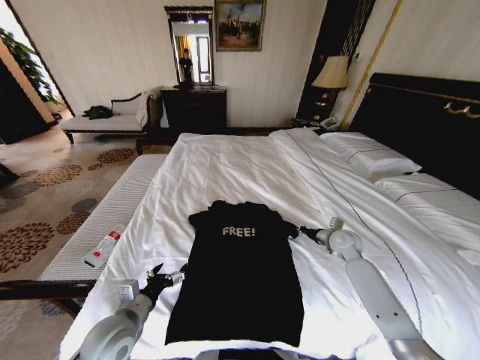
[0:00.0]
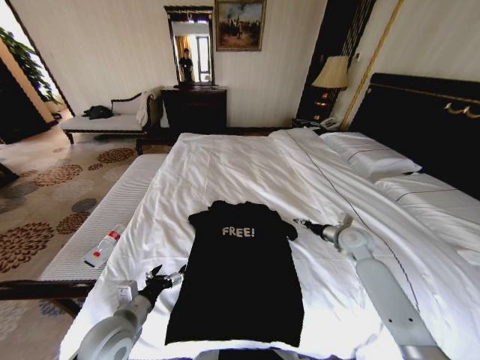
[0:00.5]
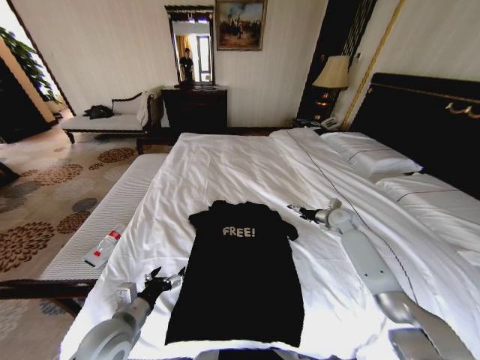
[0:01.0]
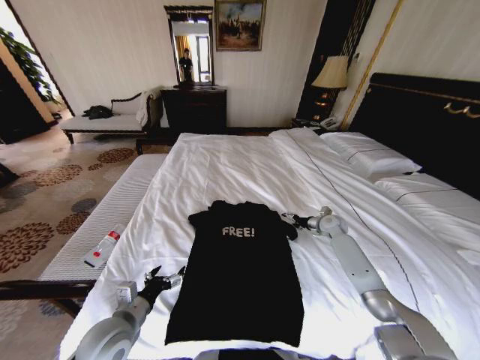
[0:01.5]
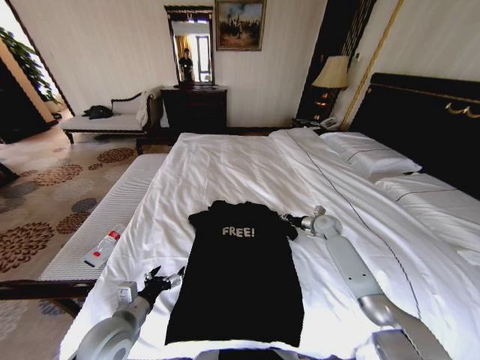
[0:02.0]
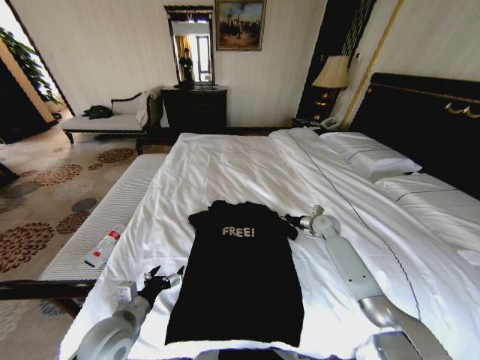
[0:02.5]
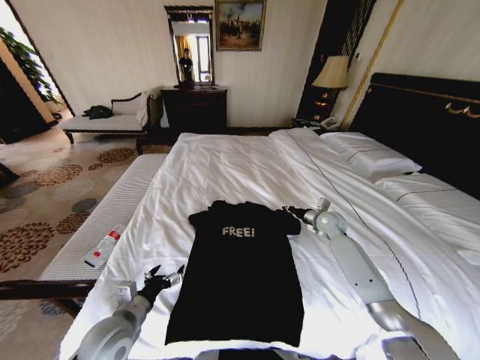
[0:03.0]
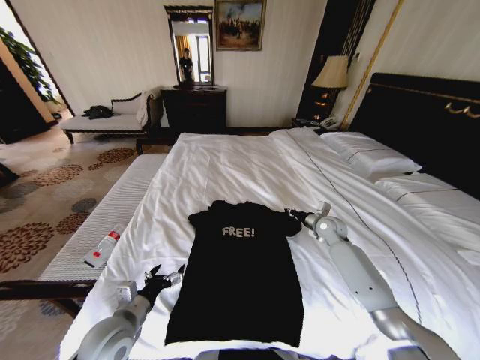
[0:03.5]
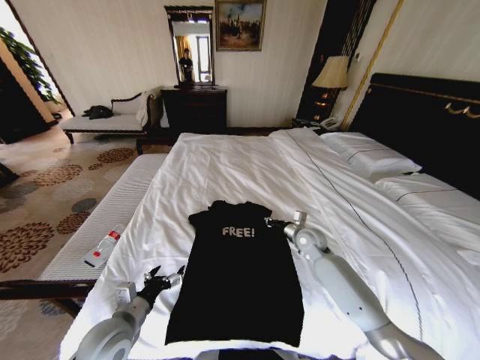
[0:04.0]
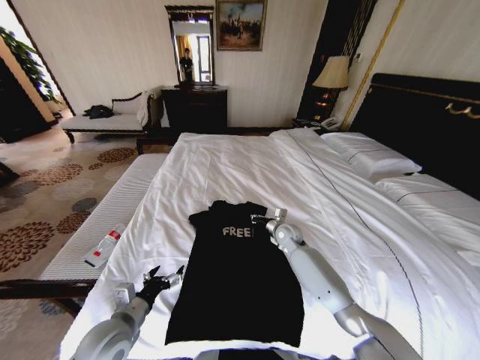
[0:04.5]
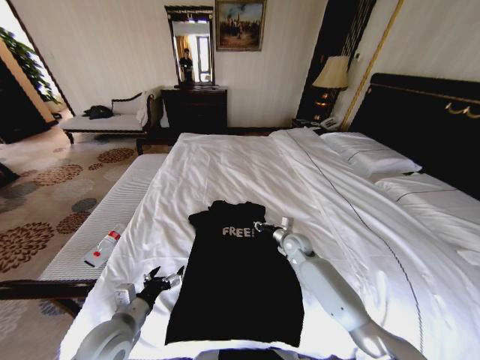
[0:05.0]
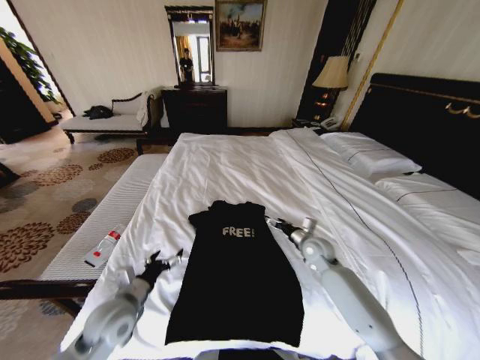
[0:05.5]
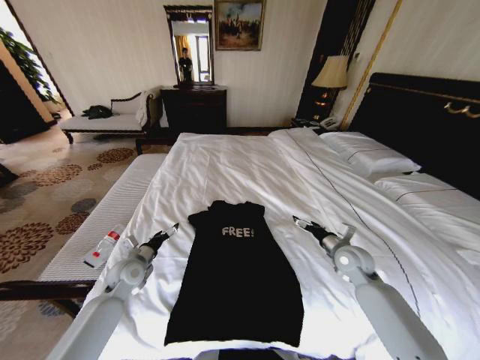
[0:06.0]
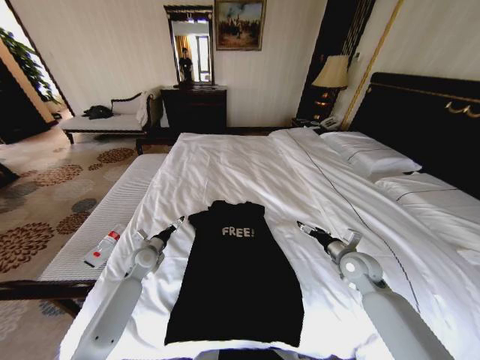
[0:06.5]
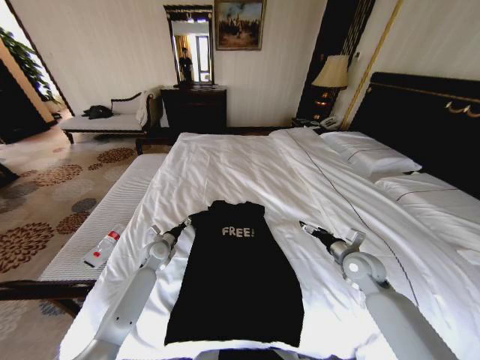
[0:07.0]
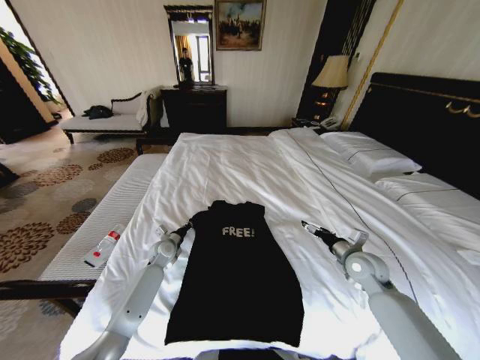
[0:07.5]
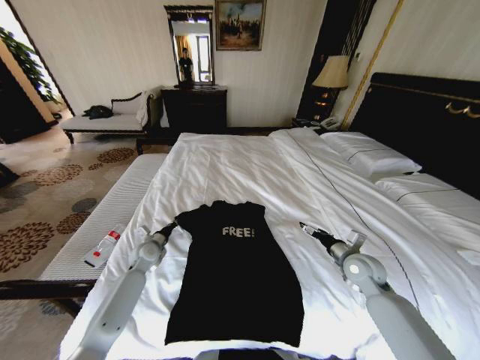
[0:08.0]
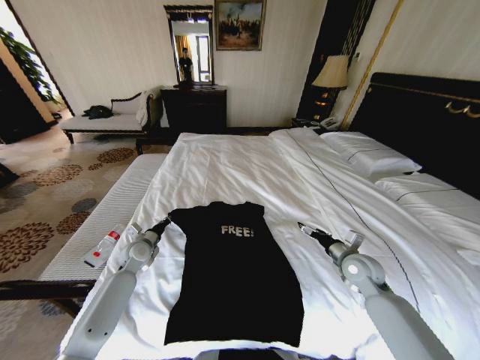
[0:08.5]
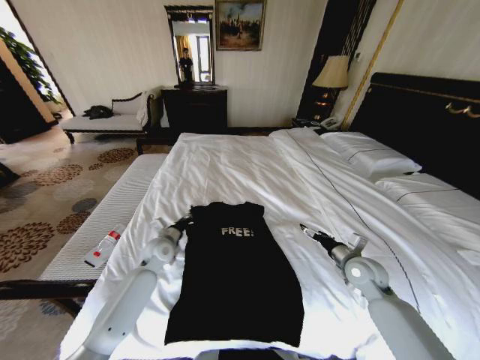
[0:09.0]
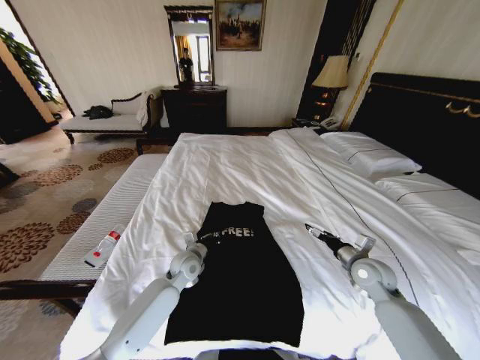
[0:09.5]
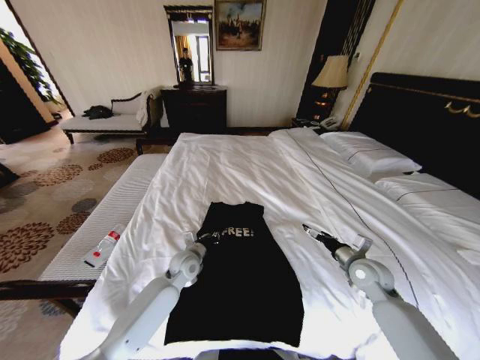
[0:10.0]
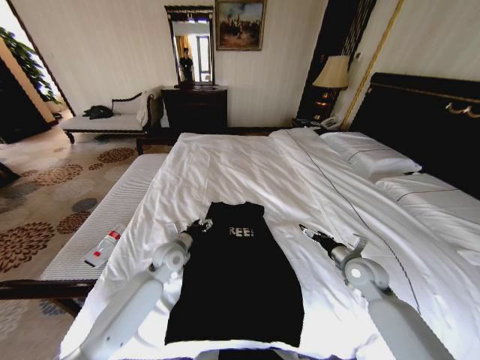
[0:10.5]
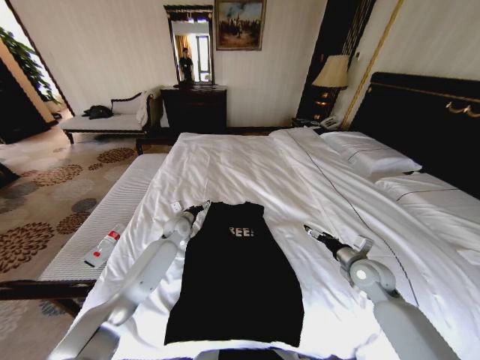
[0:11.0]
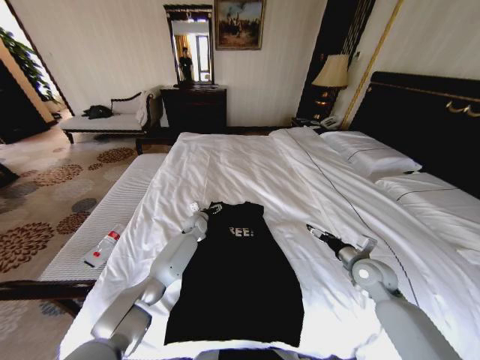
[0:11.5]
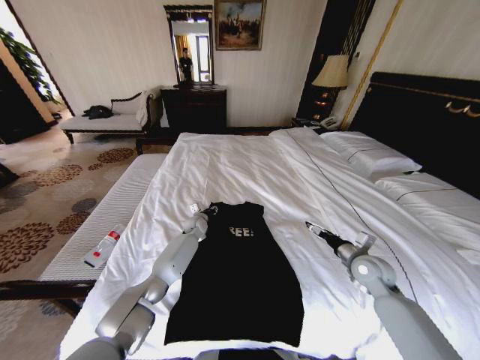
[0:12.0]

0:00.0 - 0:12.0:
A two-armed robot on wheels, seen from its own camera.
Task of the whole recording: Fold the clothes on the bed.
0:00.0 - 0:02.0: The right gripper goes approximately 10 cm forward, and opens, then closes again.
0:02.0 - 0:04.0: The right gripper shifts roughly 10 cm to the left and backward.
0:04.0 - 0:06.0: The right gripper goes about 10 cm to the right and backward, and opens up, while the left gripper heads forward, covering roughly 15 cm.
0:06.0 - 0:08.0: The left gripper is displaced forward by roughly 10 cm, and closes up.
0:08.0 - 0:10.0: The left gripper travels to the right by some 15 cm.
0:10.0 - 0:12.0: The left gripper is displaced forward by approximately 20 cm, and opens.

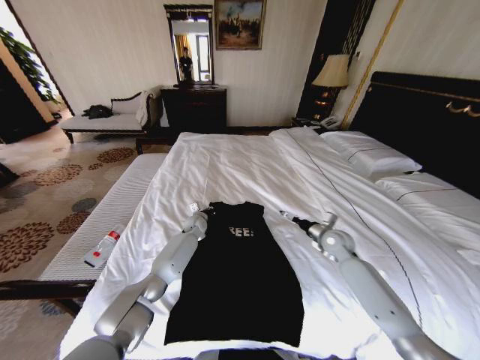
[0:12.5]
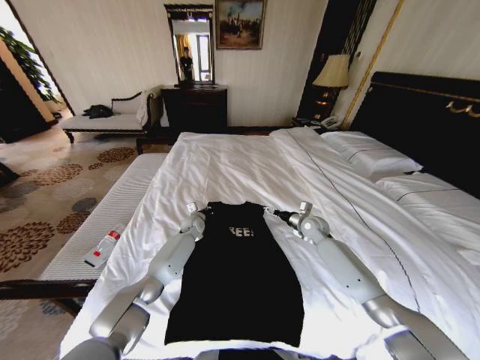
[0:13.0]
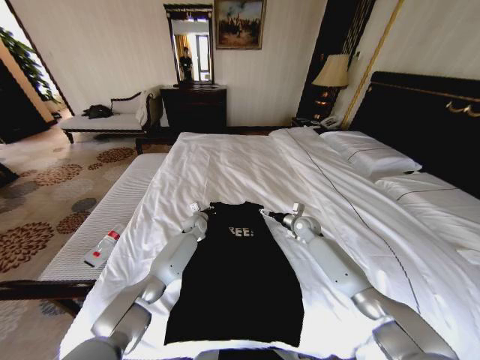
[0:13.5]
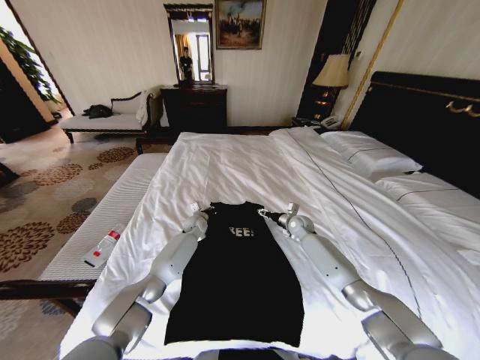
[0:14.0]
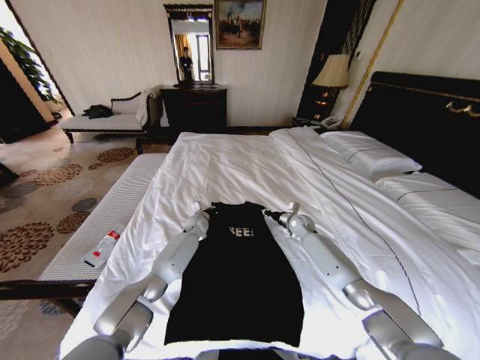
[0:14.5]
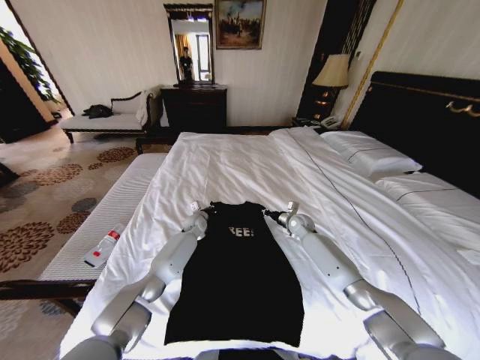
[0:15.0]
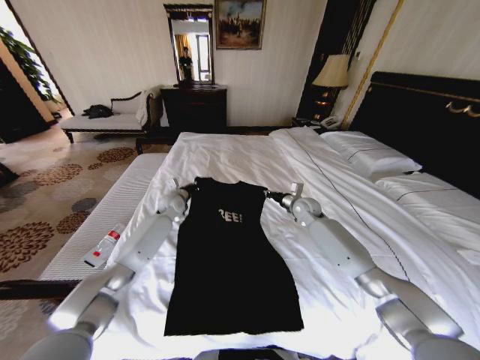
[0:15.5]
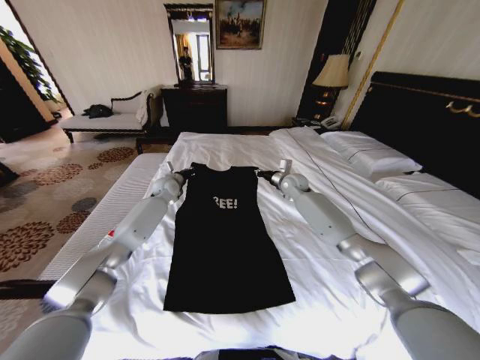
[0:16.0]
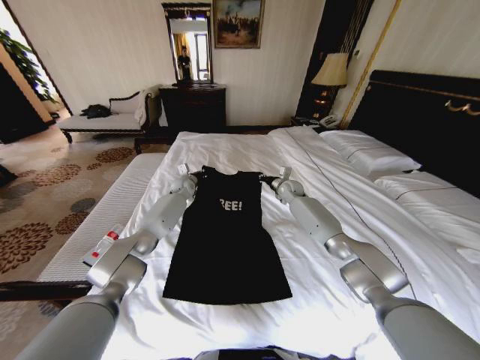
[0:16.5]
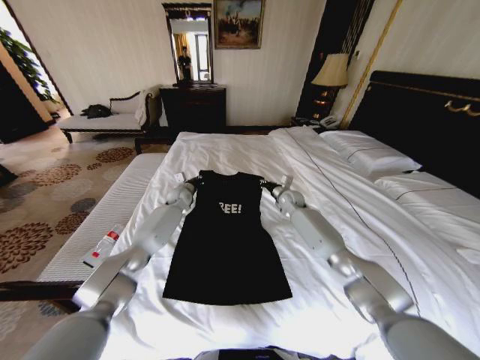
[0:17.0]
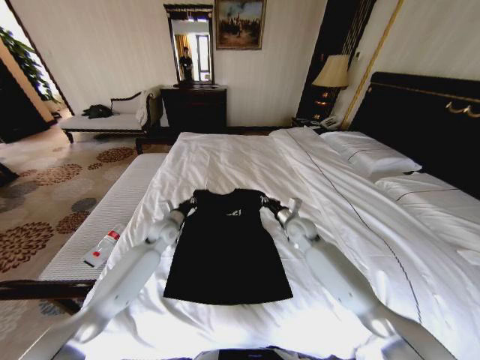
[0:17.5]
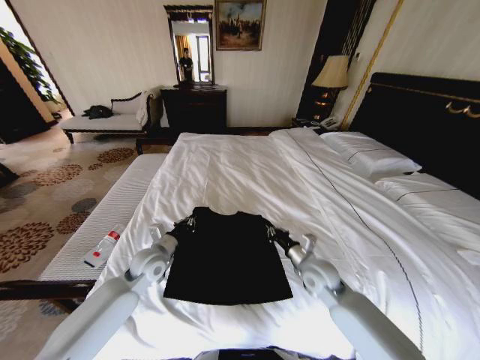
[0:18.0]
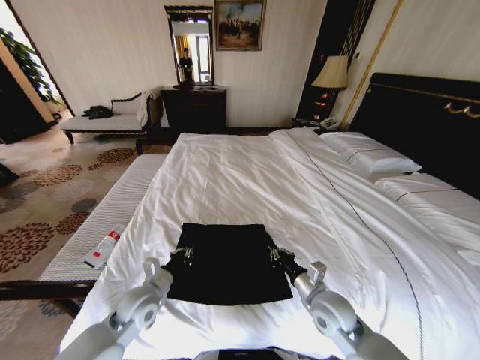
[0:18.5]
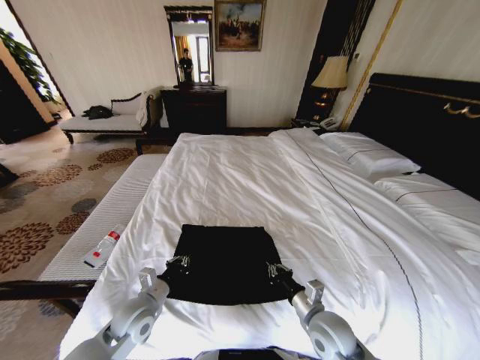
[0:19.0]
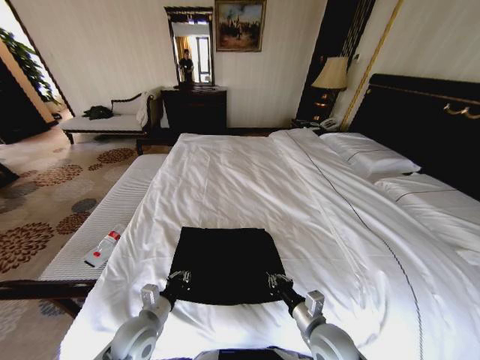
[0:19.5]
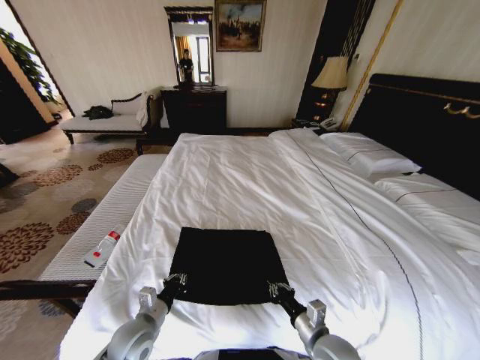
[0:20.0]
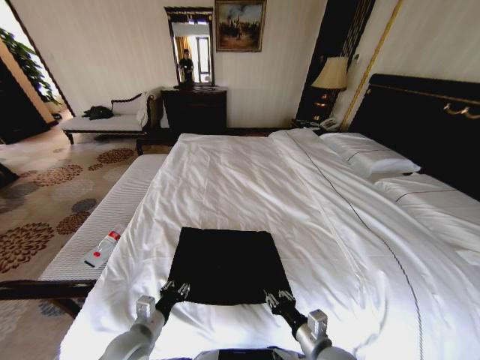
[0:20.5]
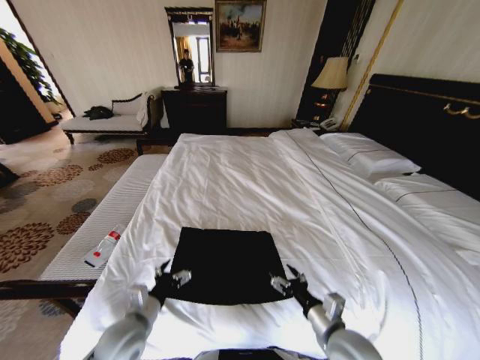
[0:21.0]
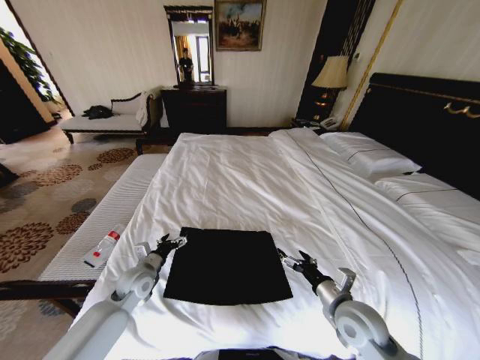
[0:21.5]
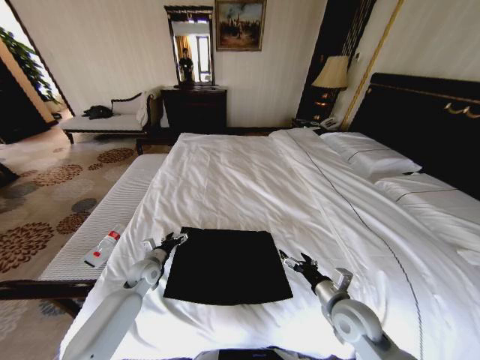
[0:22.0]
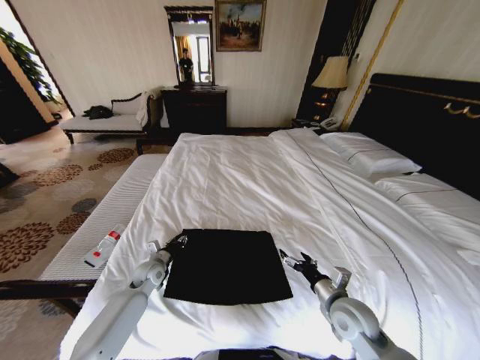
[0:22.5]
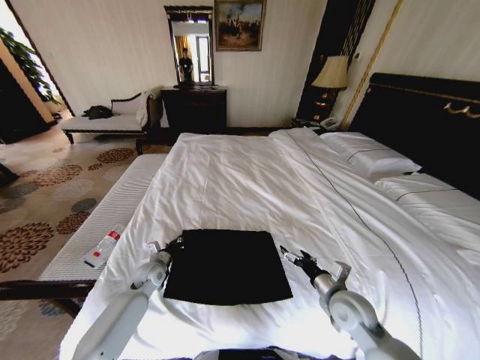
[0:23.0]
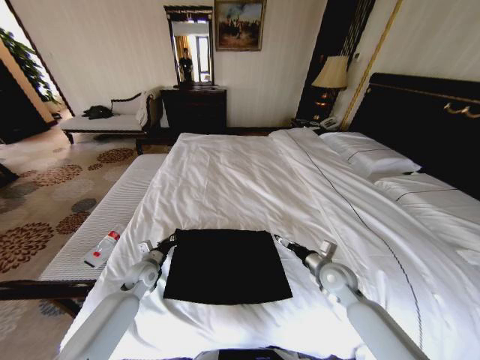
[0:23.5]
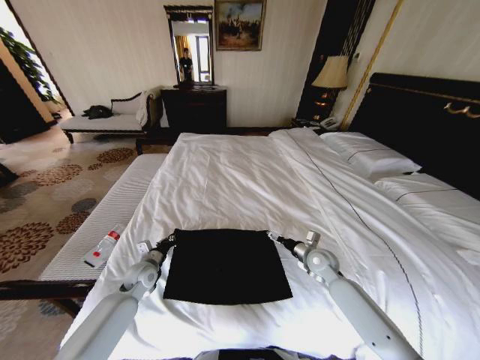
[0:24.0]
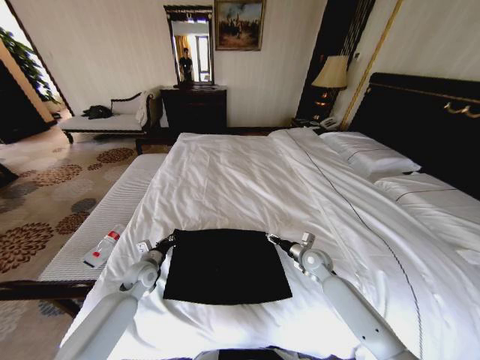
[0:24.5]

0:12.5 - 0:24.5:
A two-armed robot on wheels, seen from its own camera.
Task of the whole recording: Fold the clothes on the bed.
0:12.5 - 0:14.5: The right gripper moves forward and to the left, about 15 cm, and closes up.
0:14.5 - 0:16.5: The left gripper is displaced upward, forward and to the left by approximately 15 cm; the right gripper moves upward and forward, about 15 cm.
0:16.5 - 0:18.5: The grippers both shift backward by roughly 40 cm.
0:18.5 - 0:20.5: Both grippers travel together backward, some 10 cm. The left gripper opens up.
0:20.5 - 0:22.5: The right gripper is displaced forward and to the right by some 10 cm, and opens its fingers; the left gripper moves forward, approximately 20 cm, and opens and closes again.
0:22.5 - 0:24.5: The left gripper closes up. Meanwhile the right gripper travels forward by some 15 cm, and closes its fingers.

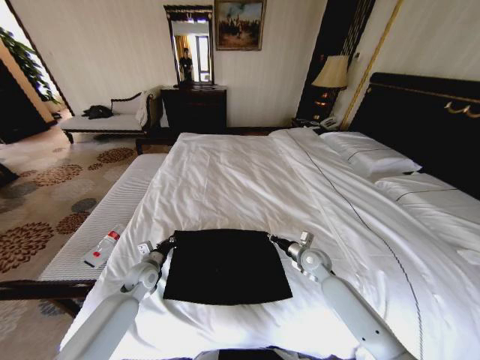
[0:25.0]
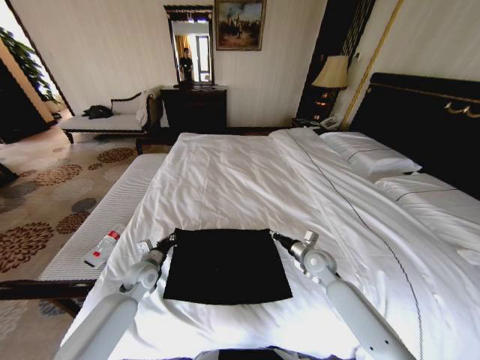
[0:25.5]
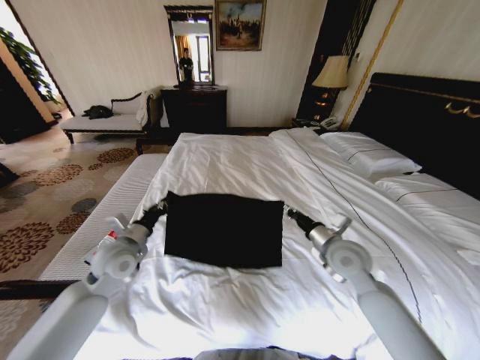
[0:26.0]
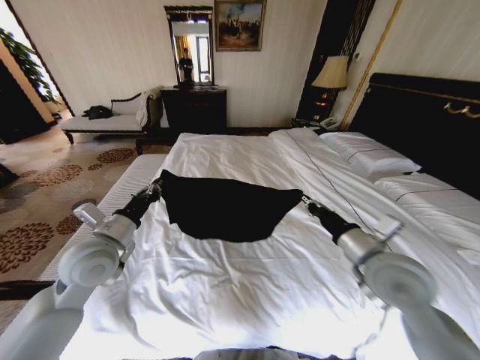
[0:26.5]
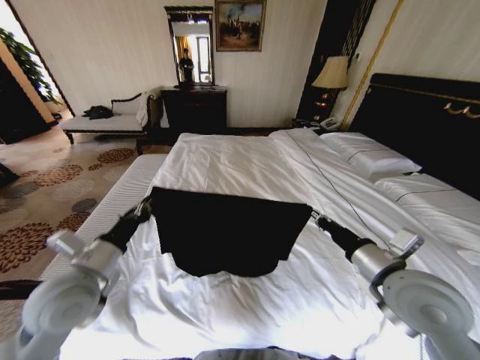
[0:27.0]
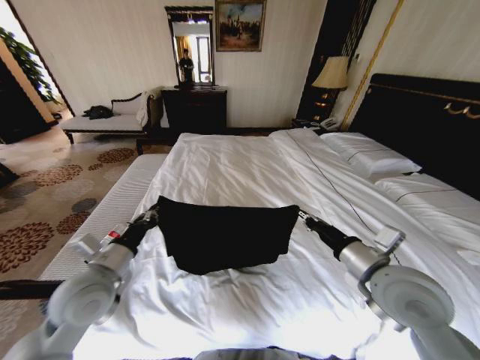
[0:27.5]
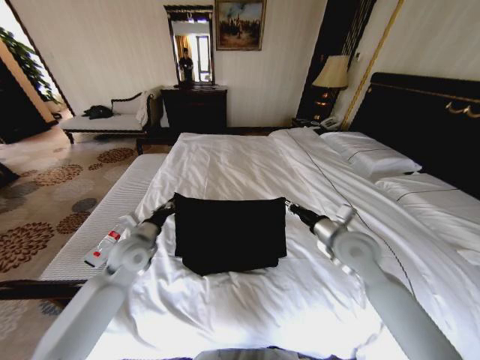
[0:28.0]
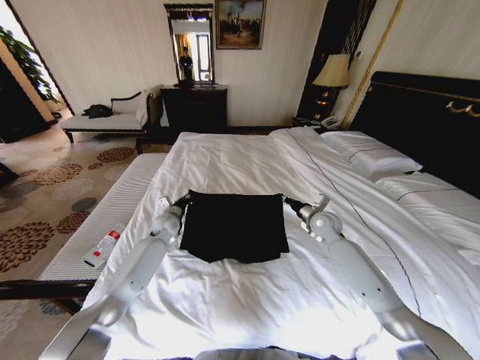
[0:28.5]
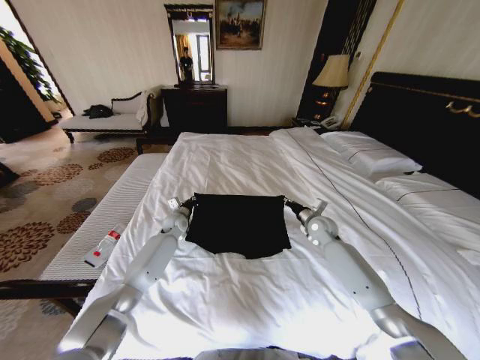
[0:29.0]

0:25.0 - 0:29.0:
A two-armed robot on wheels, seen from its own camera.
Task of the whole recording: Fold the clothes on the bed.
0:25.0 - 0:27.0: Both grippers travel together upward and backward, approximately 30 cm.
0:27.0 - 0:29.0: The grippers both shift forward and downward by about 35 cm.
